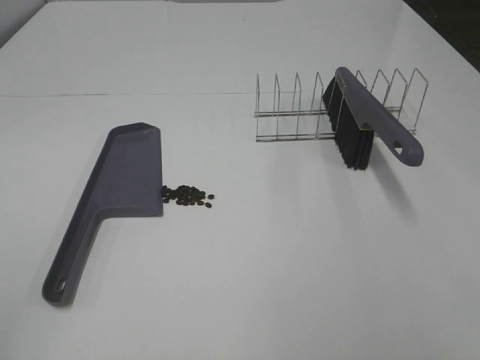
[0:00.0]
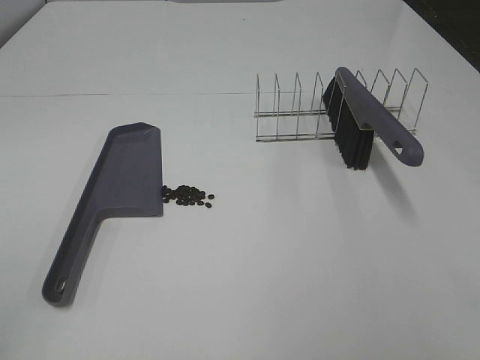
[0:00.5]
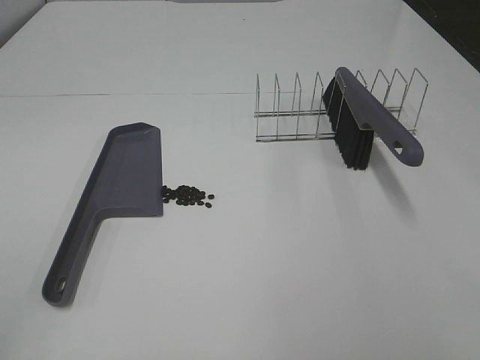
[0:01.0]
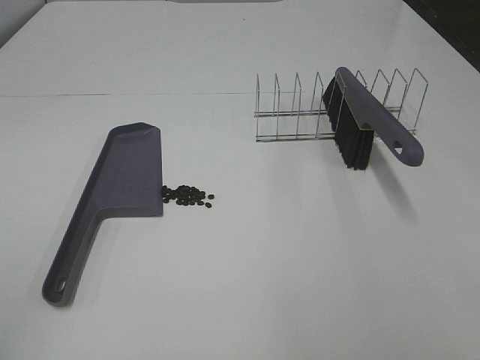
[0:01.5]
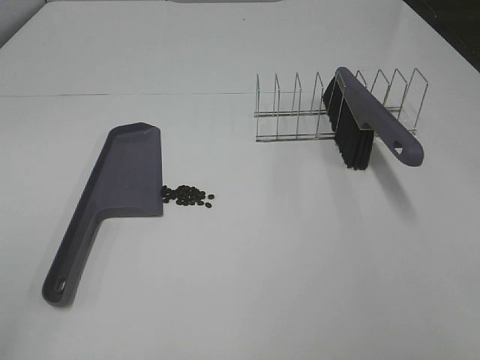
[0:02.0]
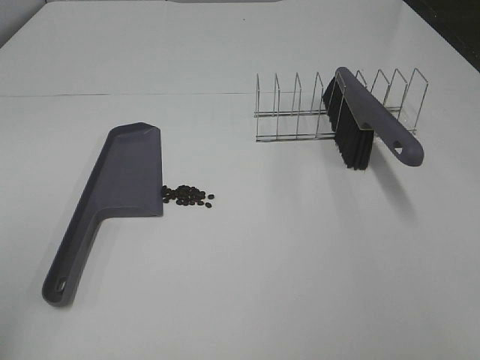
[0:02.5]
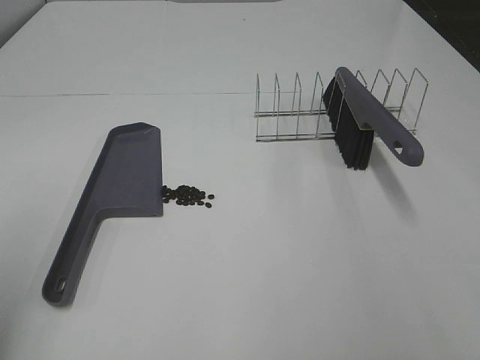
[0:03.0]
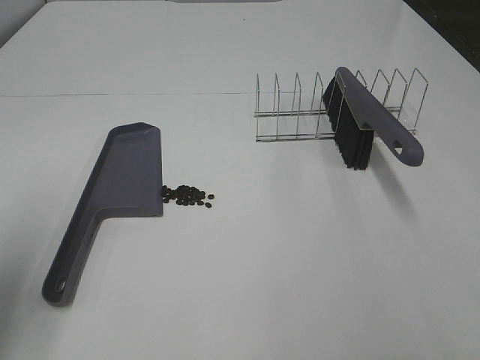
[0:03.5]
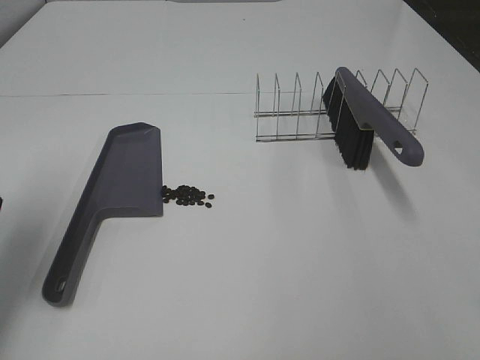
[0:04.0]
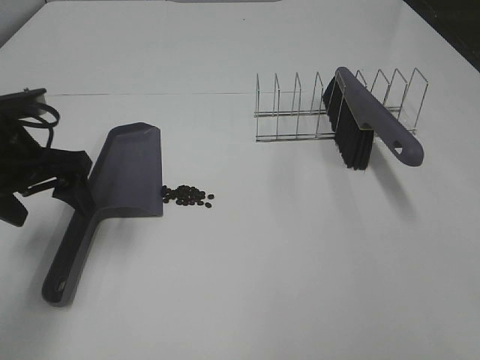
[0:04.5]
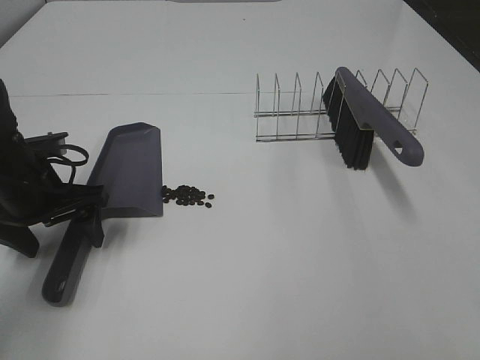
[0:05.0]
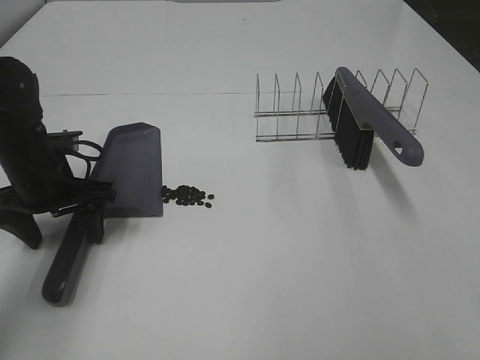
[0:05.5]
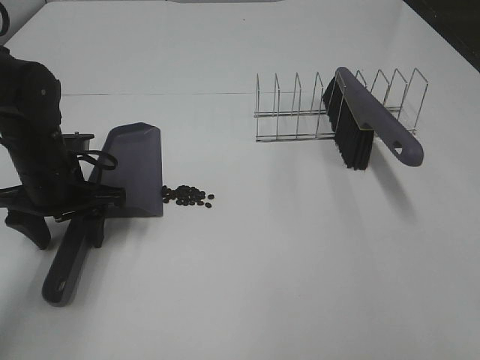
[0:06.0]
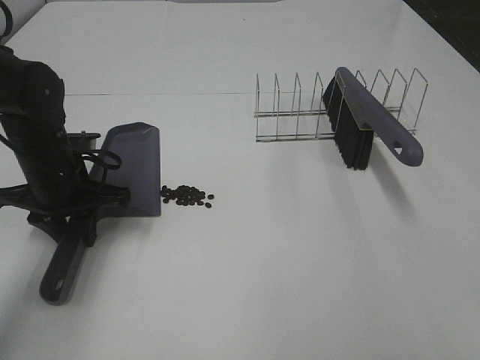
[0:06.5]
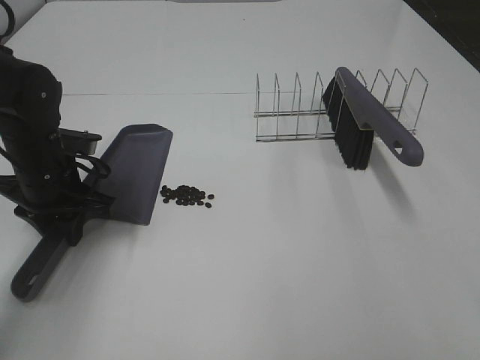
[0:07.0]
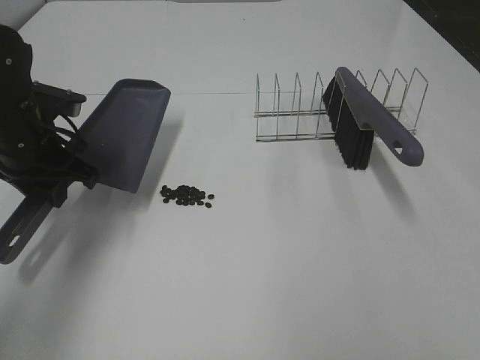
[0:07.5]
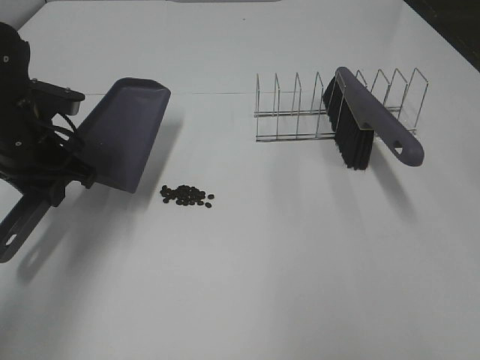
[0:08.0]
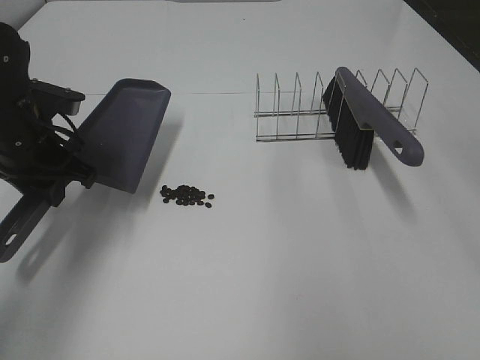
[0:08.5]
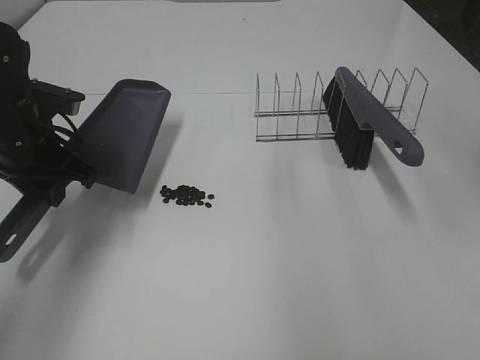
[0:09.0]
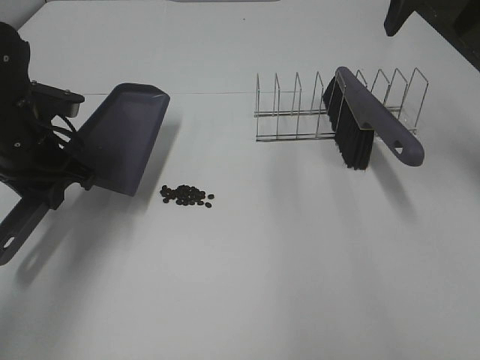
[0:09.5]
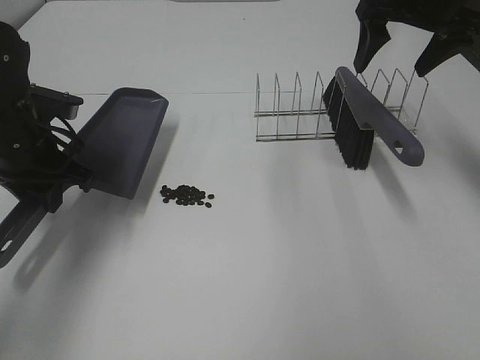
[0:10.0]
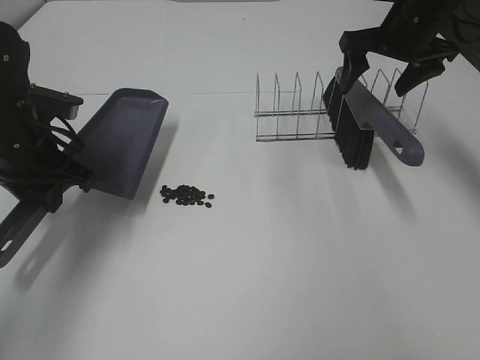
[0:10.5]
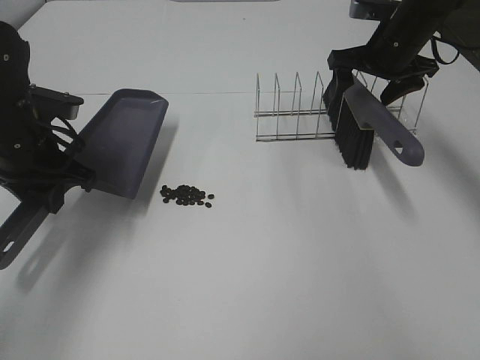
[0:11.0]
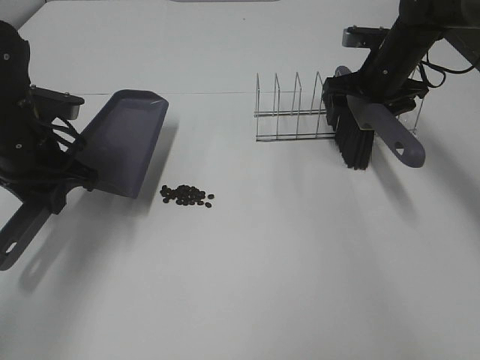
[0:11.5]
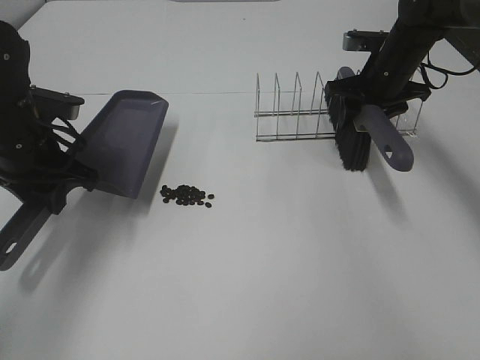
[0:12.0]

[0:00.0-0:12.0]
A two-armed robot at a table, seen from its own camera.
Task of the whole recording: Sweep Coffee Bean.
Step, 0:00.0 to 0:06.0: Left hand: grab the dustpan.
0:02.0 to 0:04.0: The left gripper goes some 25 cm forward.
0:04.0 to 0:06.0: The left gripper shifts about 20 cm downward, to the right and forward, and closes its fingers.
0:06.0 to 0:08.0: The right gripper is displaced upward and forward by about 15 cm; the left gripper is displaced upward by about 5 cm, and closes up.
0:08.0 to 0:10.0: The right gripper travels forward and downward by some 35 cm.
0:10.0 to 0:12.0: The right gripper shifts about 15 cm downward, and closes its fingers.

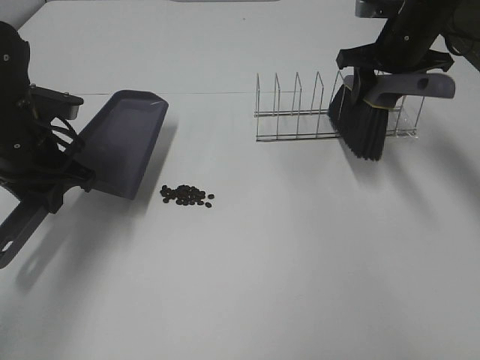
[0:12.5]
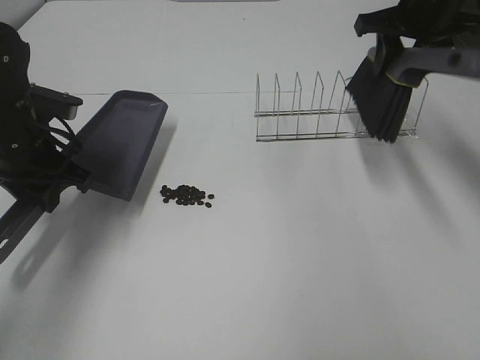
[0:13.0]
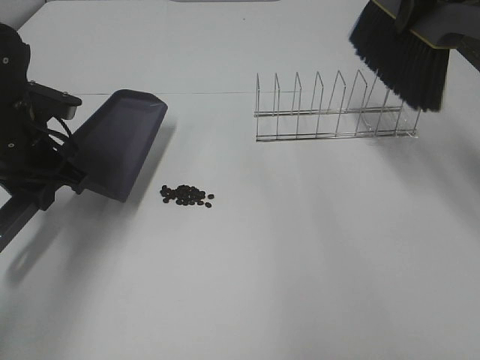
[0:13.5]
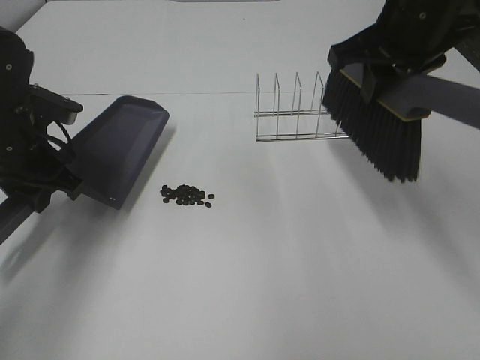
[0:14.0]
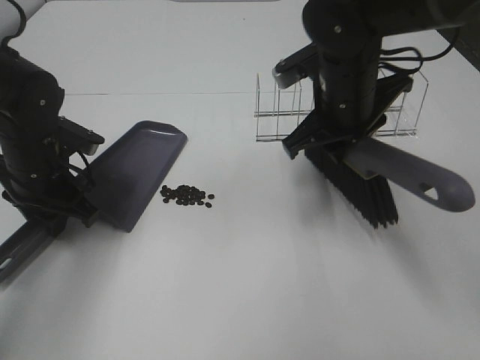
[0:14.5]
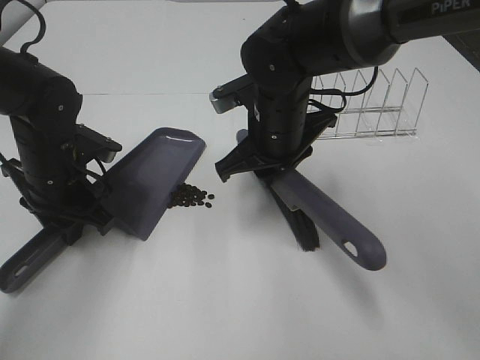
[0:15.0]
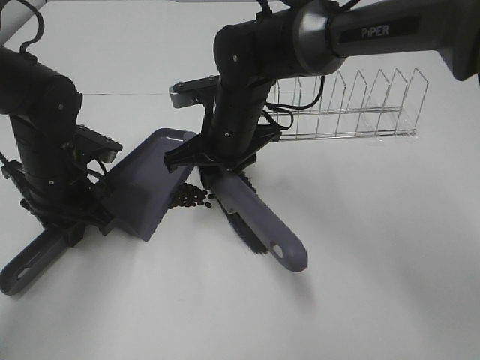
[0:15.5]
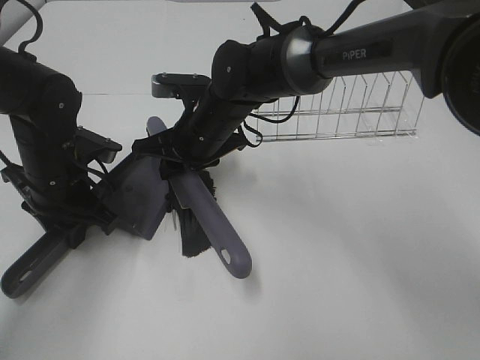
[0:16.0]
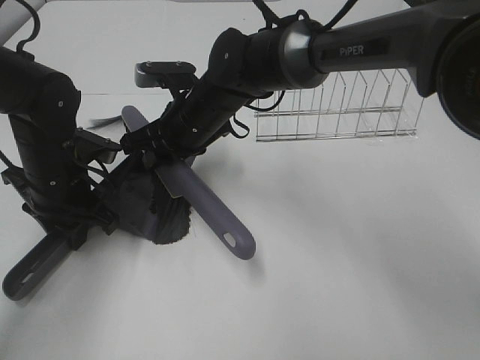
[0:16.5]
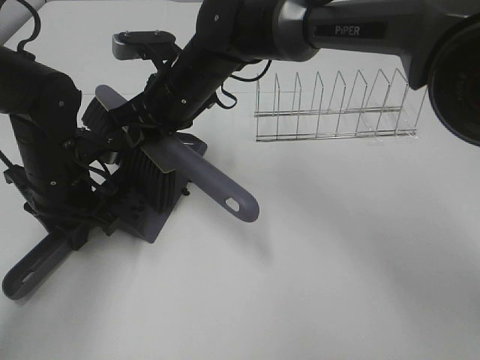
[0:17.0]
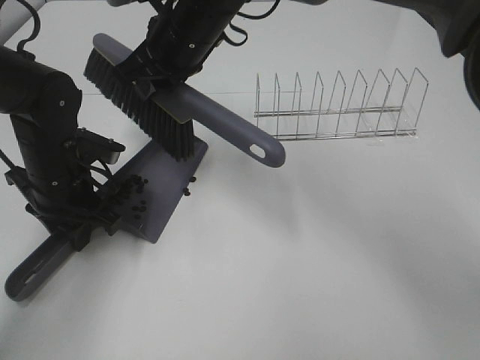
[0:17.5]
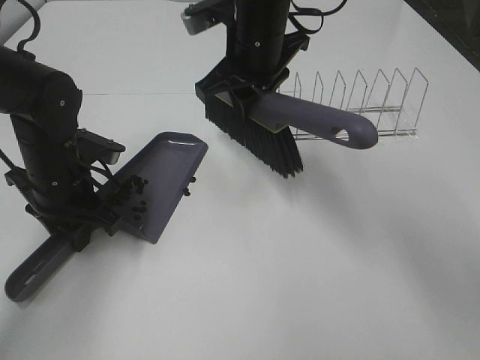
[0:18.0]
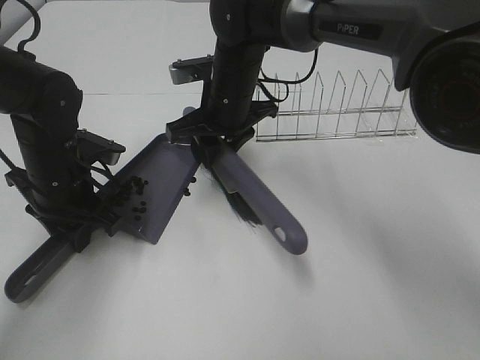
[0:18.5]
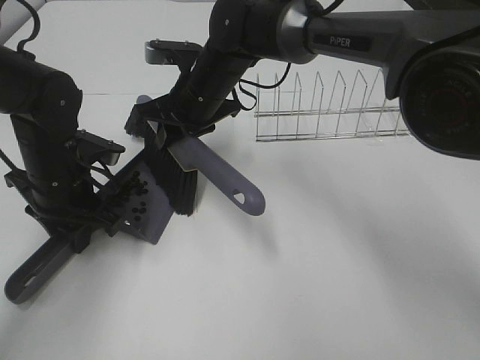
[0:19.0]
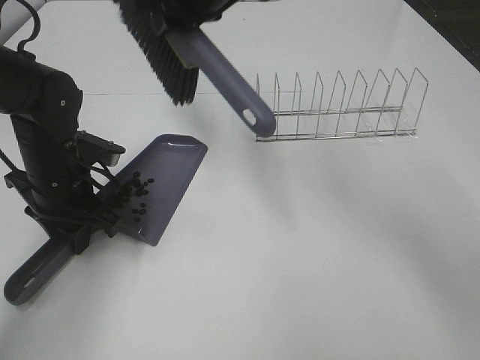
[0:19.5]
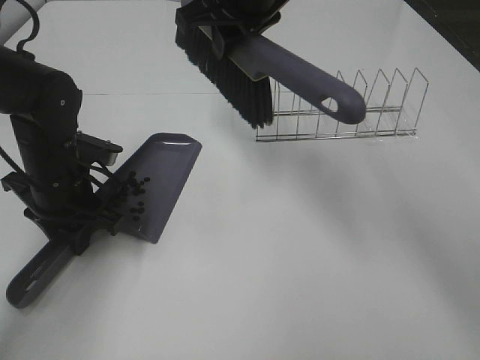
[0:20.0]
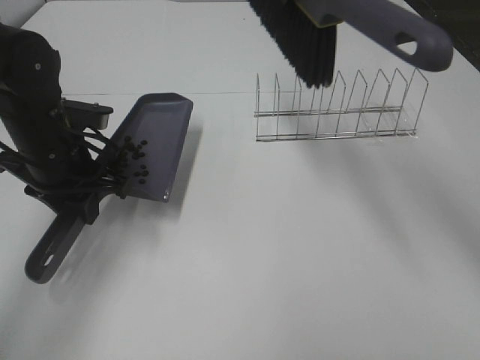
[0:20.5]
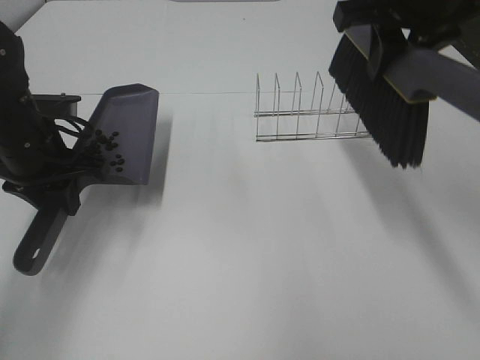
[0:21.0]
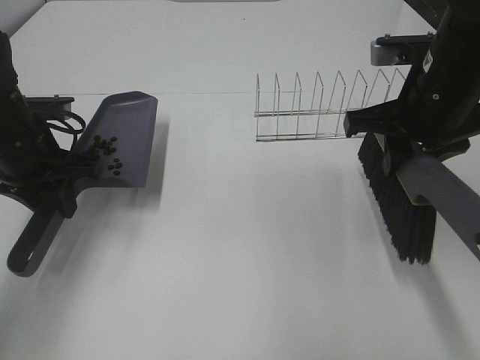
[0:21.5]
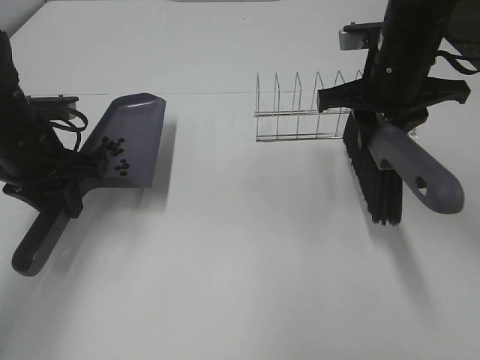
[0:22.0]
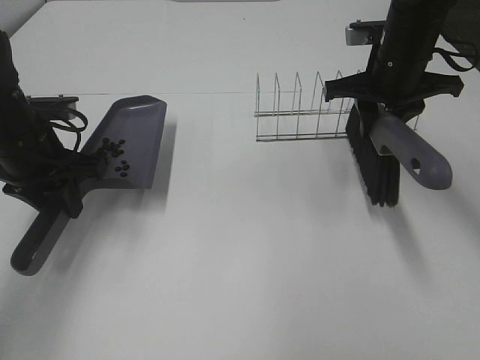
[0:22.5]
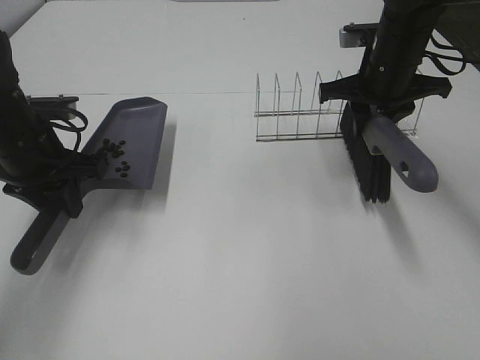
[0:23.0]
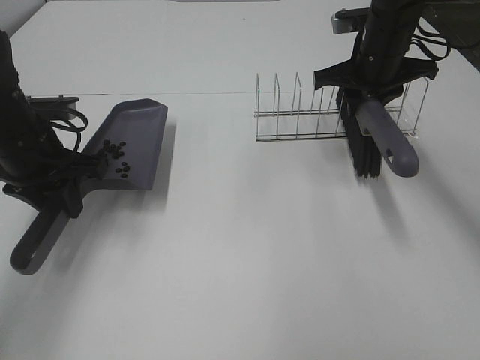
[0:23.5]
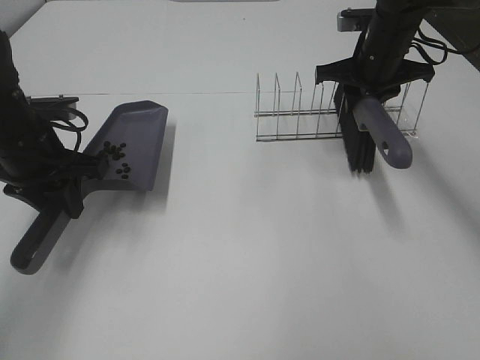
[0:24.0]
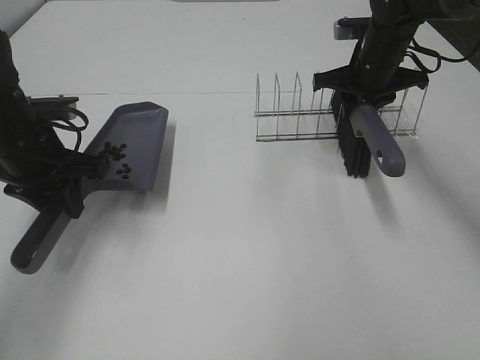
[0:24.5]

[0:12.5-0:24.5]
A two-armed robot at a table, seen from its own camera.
Task of the whole recording: Sweep Coffee Bean.
Step, 0:12.5 to 0:14.5: Left hand: move the dustpan to the left side of the coffee beans.
Step, 0:12.5 to 0:19.0: Right hand:sweep the coffee beans into the dustpan.
0:12.5 to 0:14.5: The left gripper moves downward, some 5 cm. Meanwhile the right gripper heads to the left and backward, covering approximately 20 cm, goes upward and returns, some 10 cm each way, and closes up.
0:14.5 to 0:16.5: The right gripper heads to the left, covering roughly 15 cm.
0:16.5 to 0:18.5: The right gripper moves roughly 10 cm upward and comes back.
0:18.5 to 0:20.5: The right gripper travels upward and to the right by about 25 cm.
0:20.5 to 0:22.5: The right gripper shifts some 20 cm downward and to the right.
0:22.5 to 0:24.5: The right gripper goes roughly 5 cm forward.

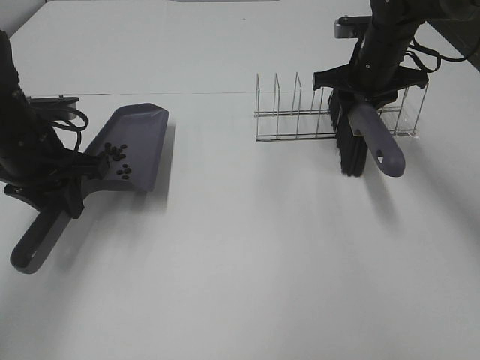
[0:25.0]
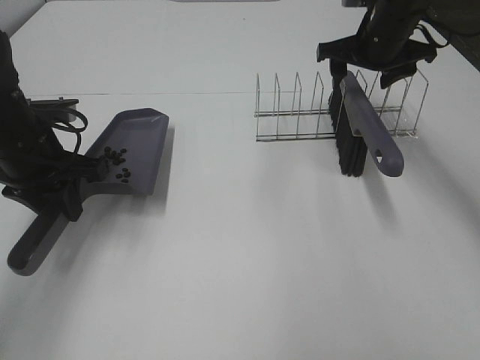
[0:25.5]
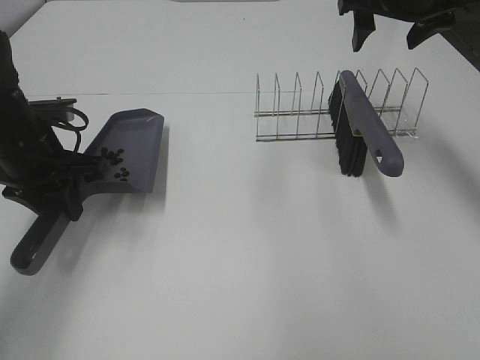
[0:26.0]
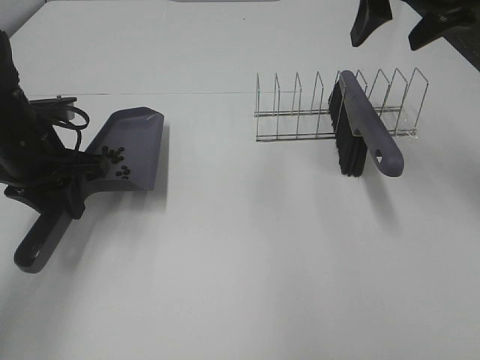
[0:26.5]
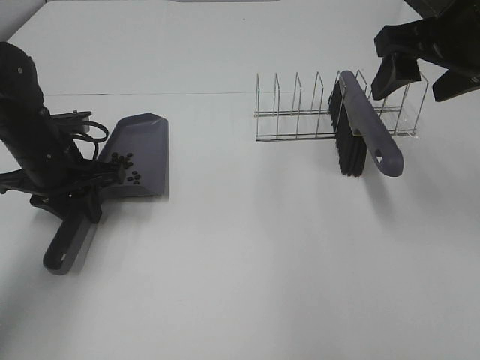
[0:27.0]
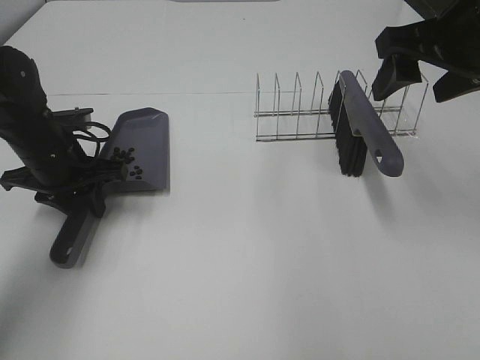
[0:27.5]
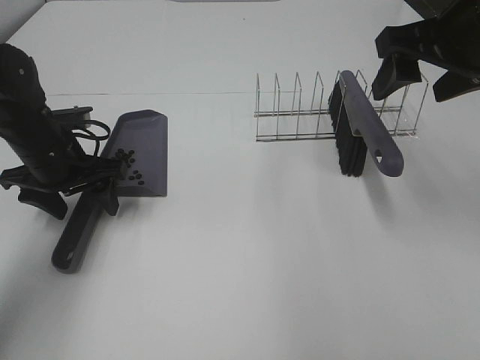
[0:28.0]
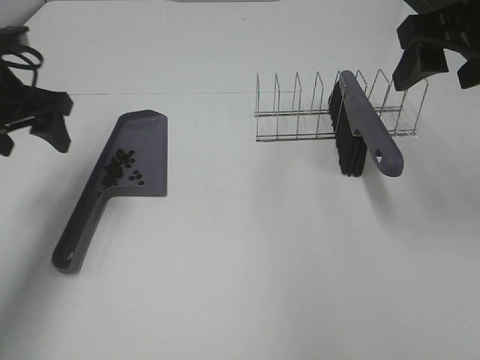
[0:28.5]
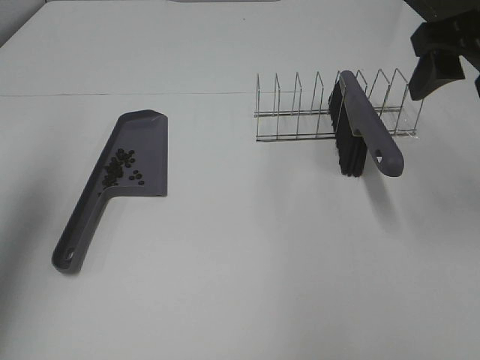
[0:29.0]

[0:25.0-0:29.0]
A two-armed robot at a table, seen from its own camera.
Task of the whole recording: Sweep Coffee Bean.
Step, 0:25.5 to 0:27.5: Left hand:place the dustpan on the table.
0:25.0 to 0:27.0: The right gripper is displaced backward and upward by roughly 20 cm, and opens.
0:27.0 to 0:29.0: The left gripper is displaced upward and to the left by some 20 cm, and opens up.
